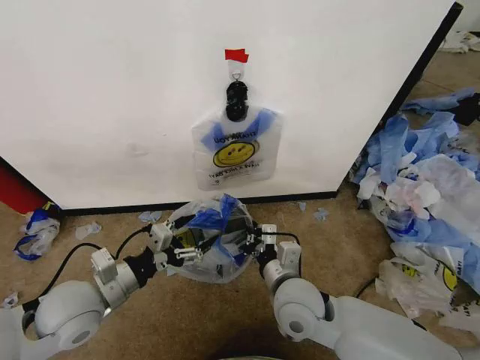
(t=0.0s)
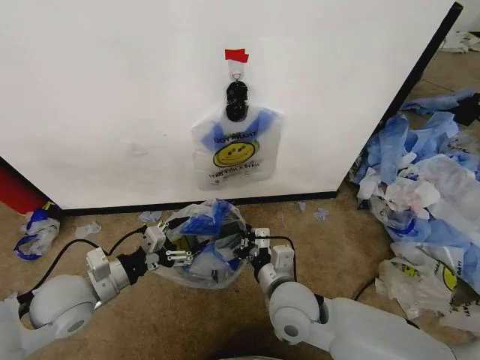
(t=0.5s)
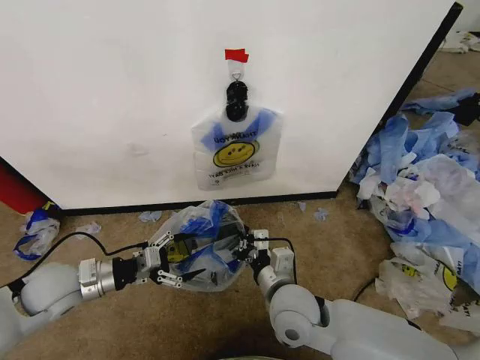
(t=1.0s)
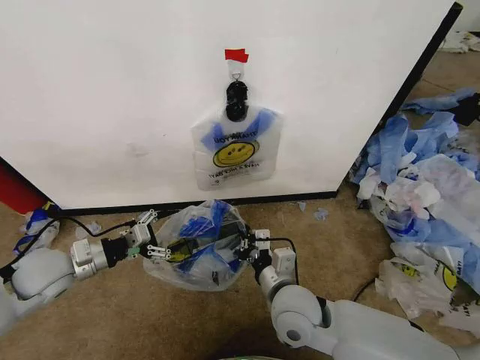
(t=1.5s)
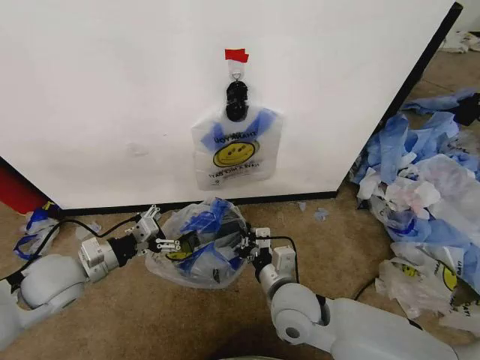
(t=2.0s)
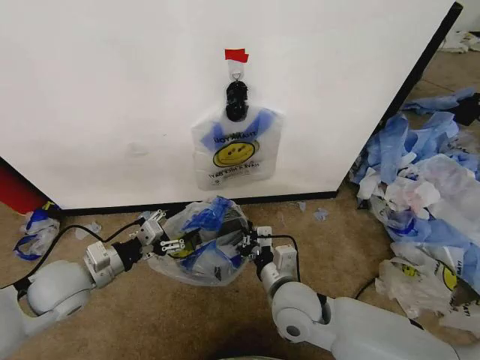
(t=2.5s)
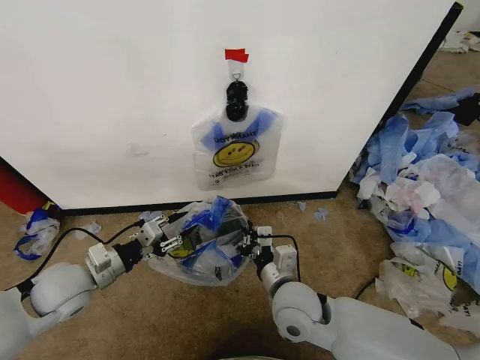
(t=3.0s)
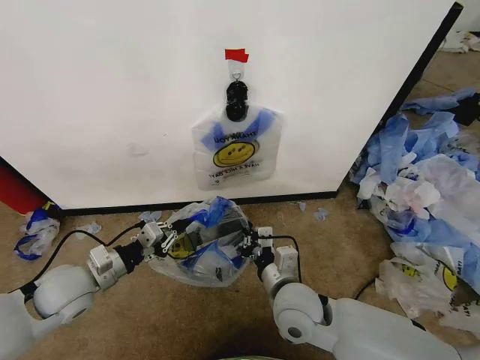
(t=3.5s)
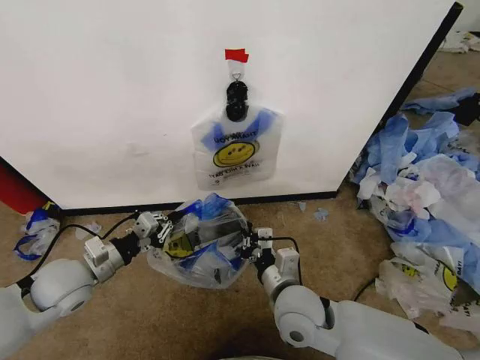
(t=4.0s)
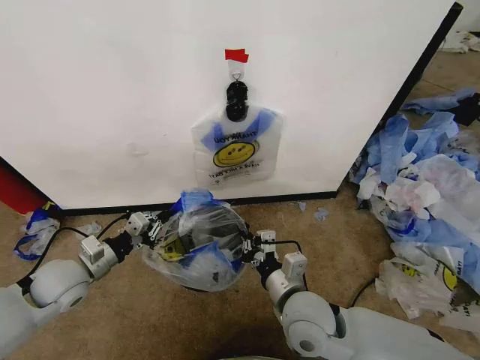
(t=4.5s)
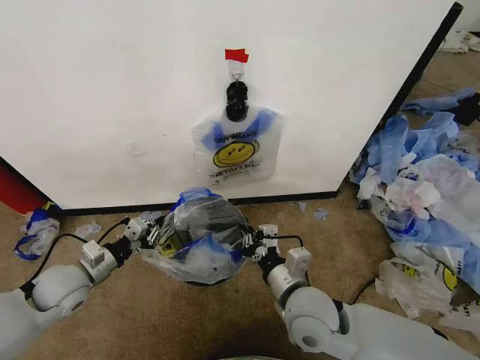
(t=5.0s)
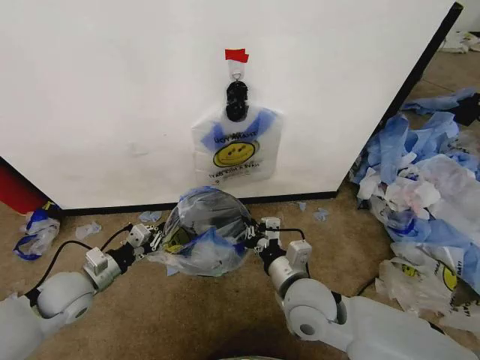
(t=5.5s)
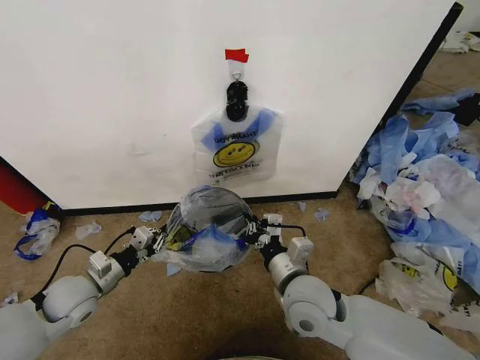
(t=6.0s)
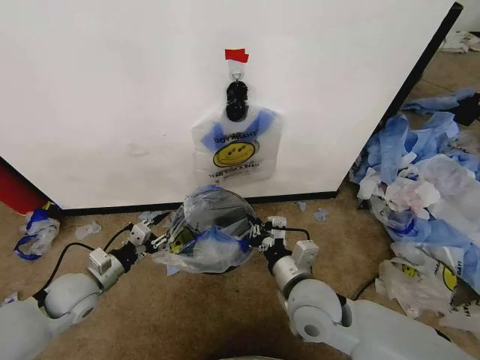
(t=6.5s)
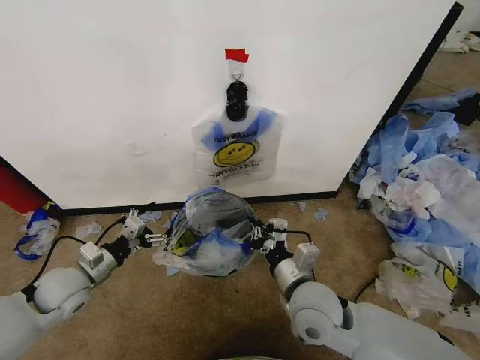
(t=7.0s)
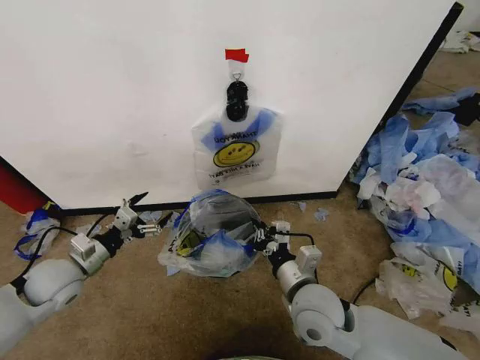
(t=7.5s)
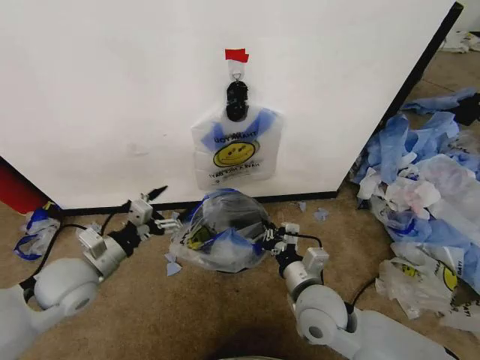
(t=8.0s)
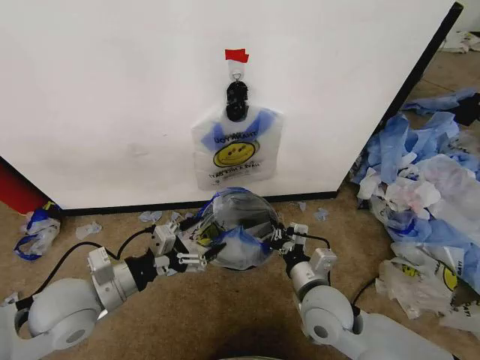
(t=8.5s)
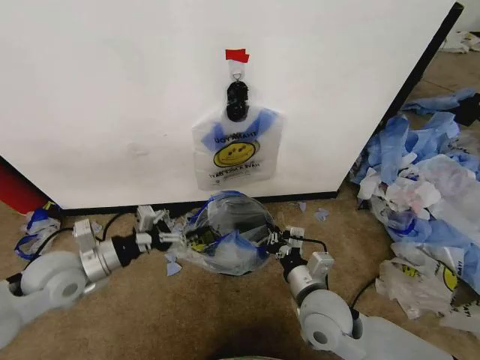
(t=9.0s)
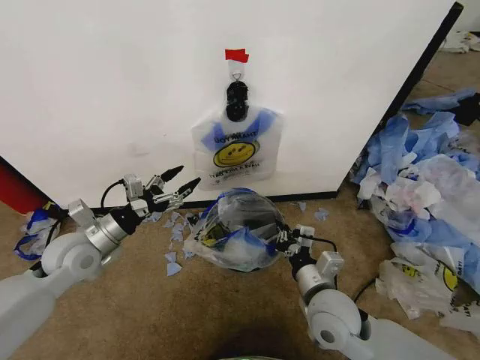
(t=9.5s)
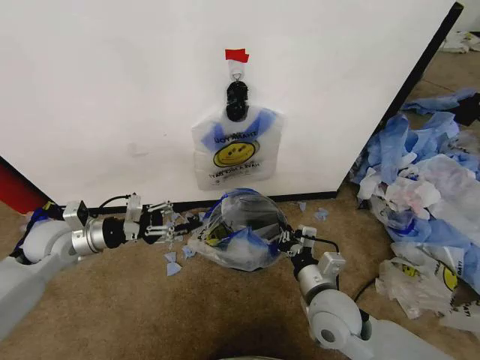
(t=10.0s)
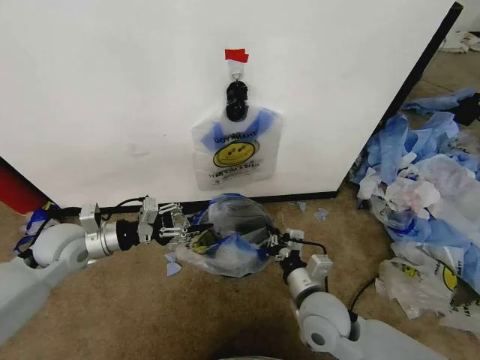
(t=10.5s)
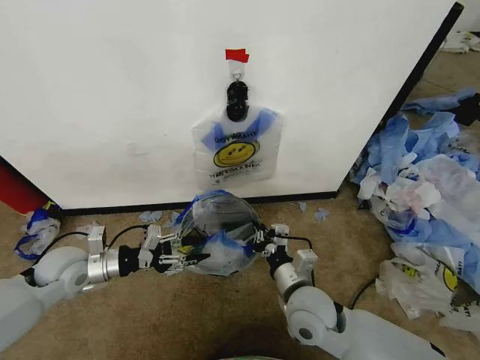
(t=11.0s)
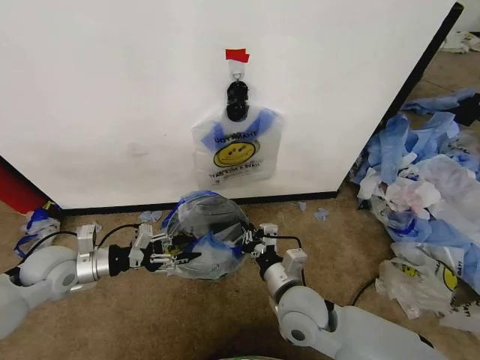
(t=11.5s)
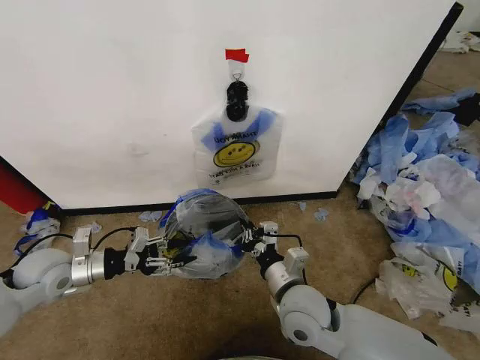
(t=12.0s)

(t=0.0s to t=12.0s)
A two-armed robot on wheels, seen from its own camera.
Task of the whole recording: Pick up the garbage bag from the wall and place it over the trash bin.
t=0.0s - t=2.0s: The left gripper moves to the left and forward, about 10 cm.
t=2.0s - t=4.0s: The left gripper closes its fingers.
t=4.0s - t=6.0s: The left gripper moves downward, about 5 cm.
t=6.0s - t=8.0s: The left gripper moves upward, about 10 cm, and opens.
t=8.0s - t=10.0s: The left gripper heads forward and to the left, covering about 10 cm, and closes.
t=10.0s - t=12.0s: The right gripper moves to the left, roughly 5 cm; the left gripper changes place by approximately 5 cm.

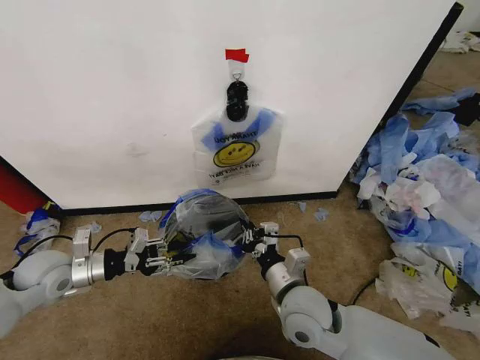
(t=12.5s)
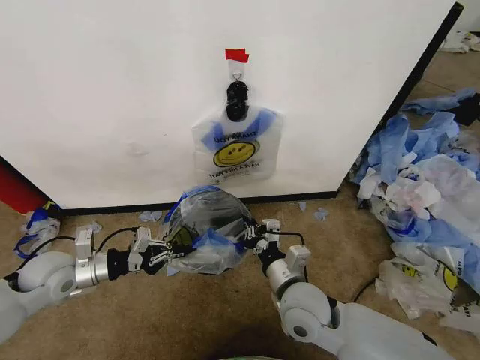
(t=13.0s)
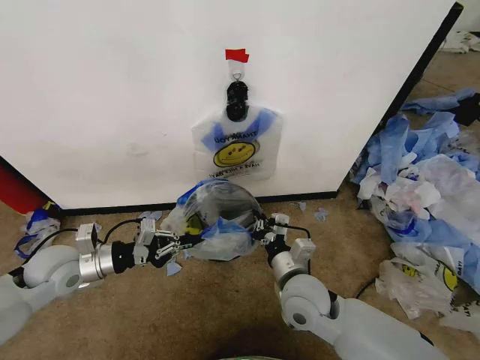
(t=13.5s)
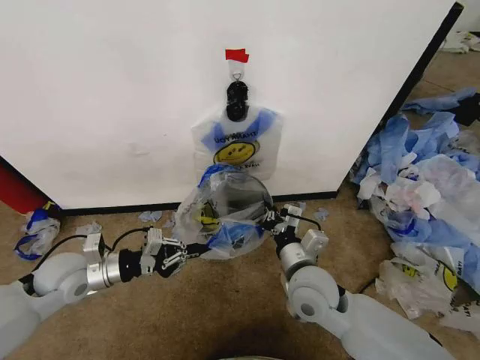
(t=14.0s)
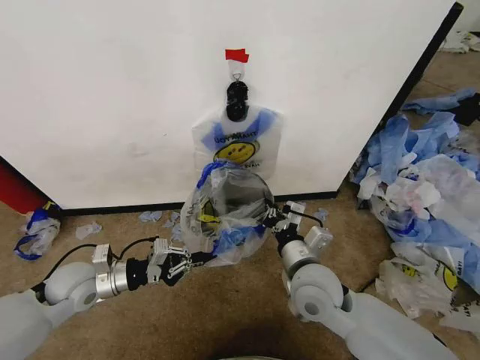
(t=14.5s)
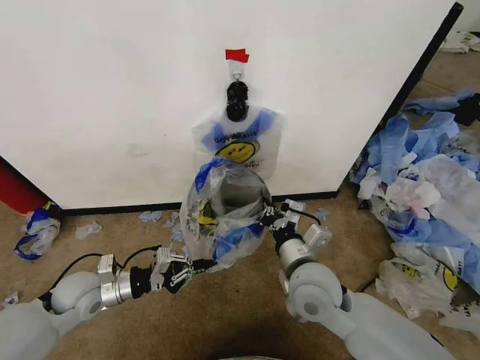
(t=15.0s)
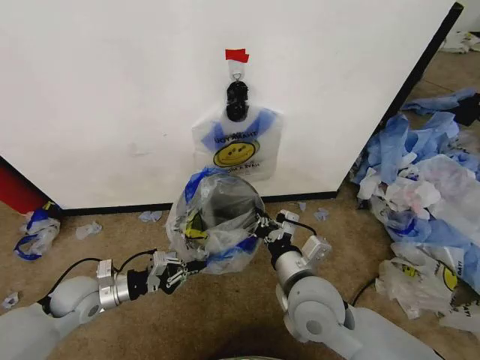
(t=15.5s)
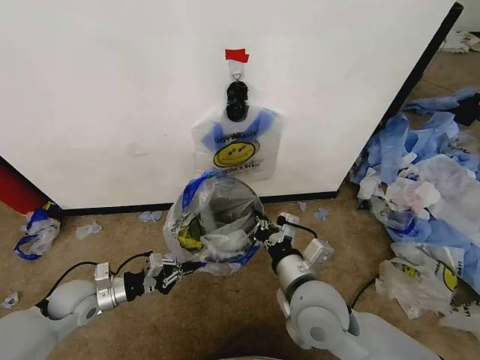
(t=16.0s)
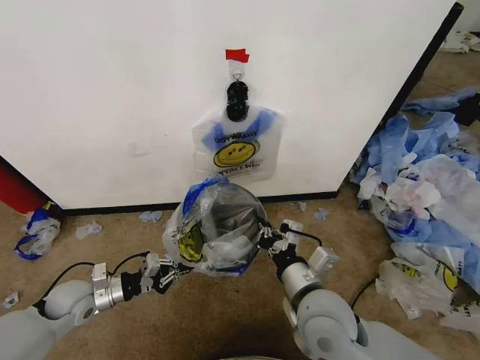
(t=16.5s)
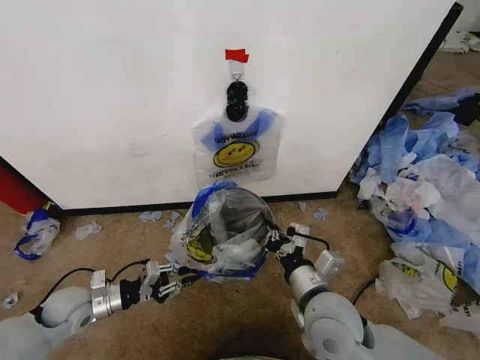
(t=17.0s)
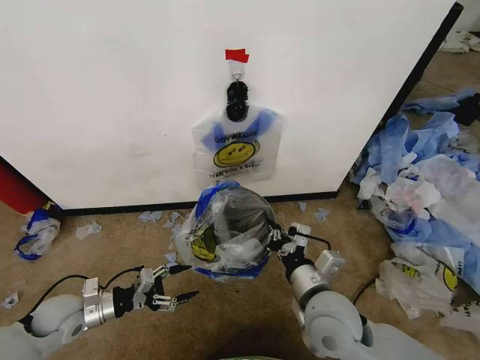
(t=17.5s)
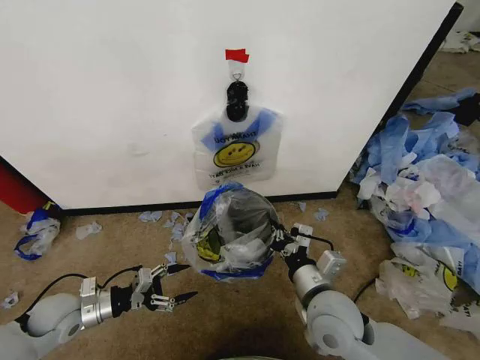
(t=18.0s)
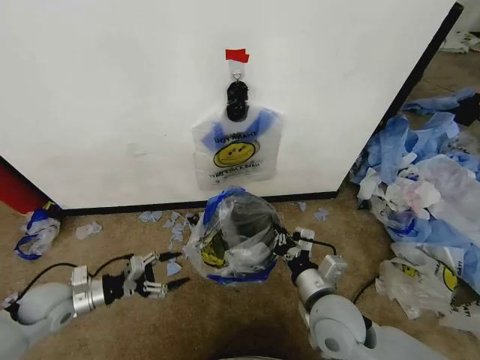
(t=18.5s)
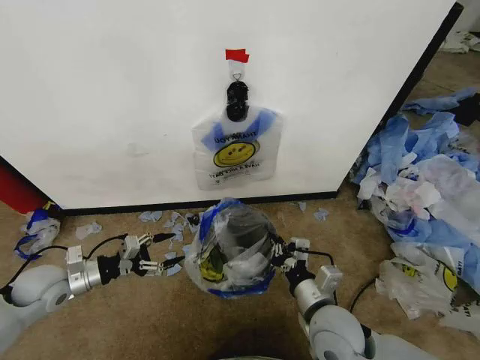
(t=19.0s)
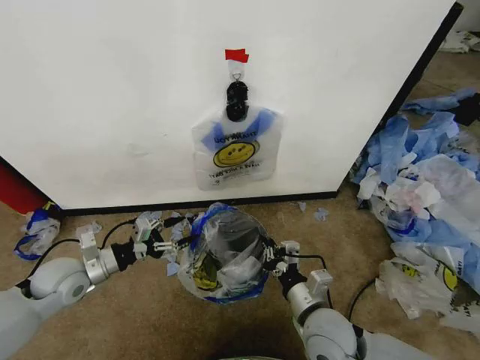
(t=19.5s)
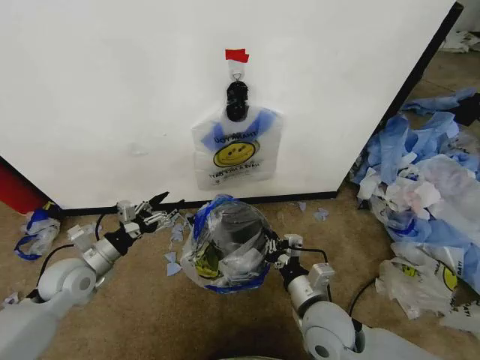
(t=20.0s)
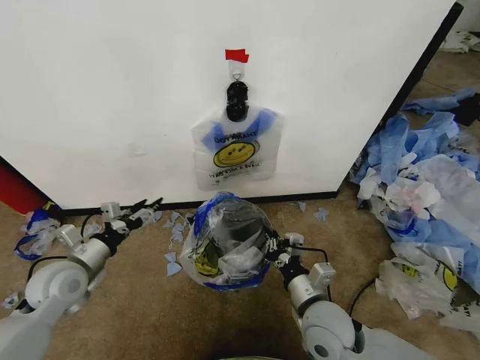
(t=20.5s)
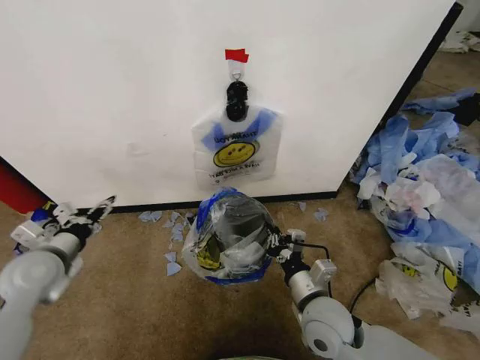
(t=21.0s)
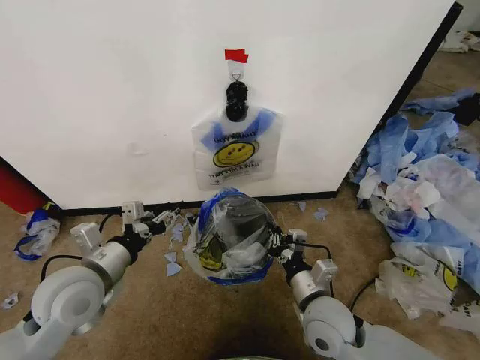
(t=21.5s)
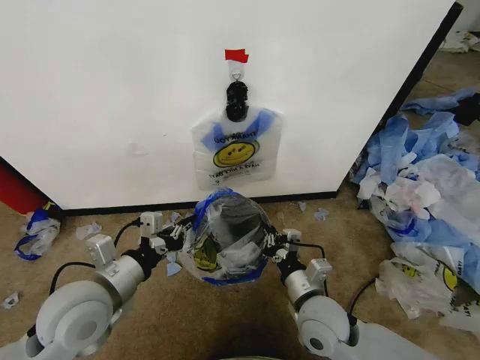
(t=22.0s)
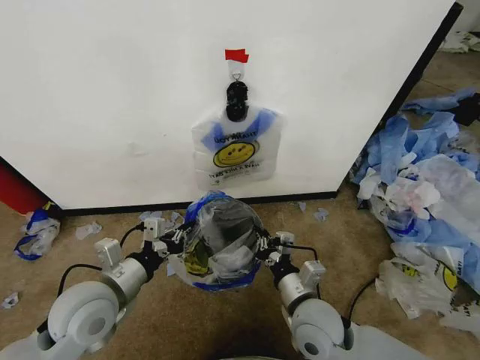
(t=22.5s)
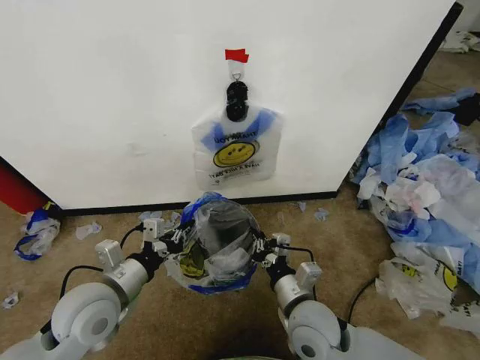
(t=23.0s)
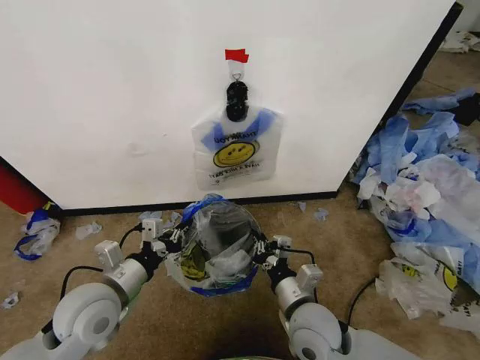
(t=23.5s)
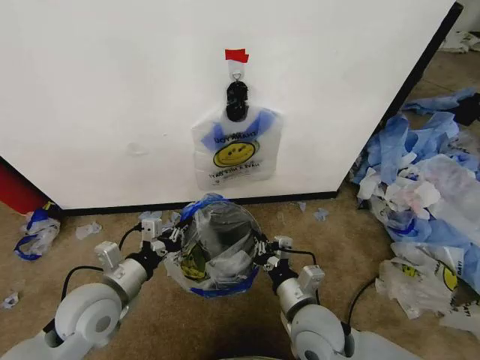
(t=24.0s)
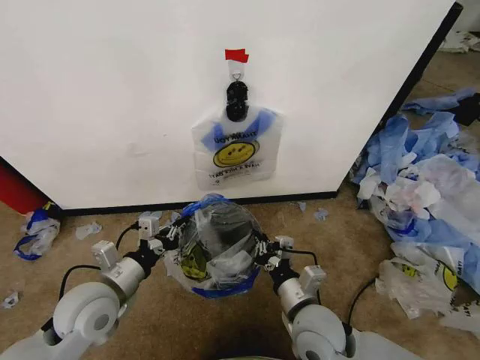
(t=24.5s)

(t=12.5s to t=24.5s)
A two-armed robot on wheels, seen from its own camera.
Task of the whole recording: Pick up the garbage bag from the wall and place it over the trash bin.
t=12.5s - t=14.5s: The left gripper is displaced to the right by some 5 cm, and closes.
t=14.5s - t=16.5s: The right gripper shifts roughly 5 cm backward. The left gripper travels downward by about 5 cm.
t=16.5s - t=18.5s: The left gripper opens. The right gripper shifts by roughly 5 cm.
t=18.5s - t=20.5s: The left gripper goes approximately 5 cm upward.
t=20.5s - t=22.5s: The left gripper goes about 15 cm to the right and backward, and closes.
t=22.5s - t=24.5s: The grippers make only small movements.

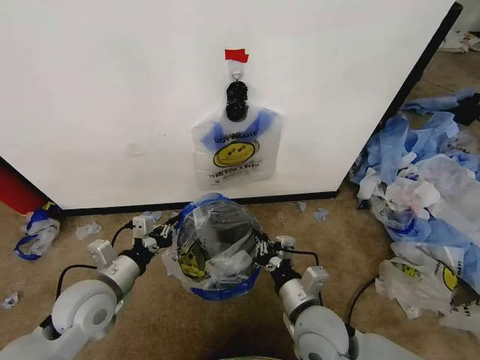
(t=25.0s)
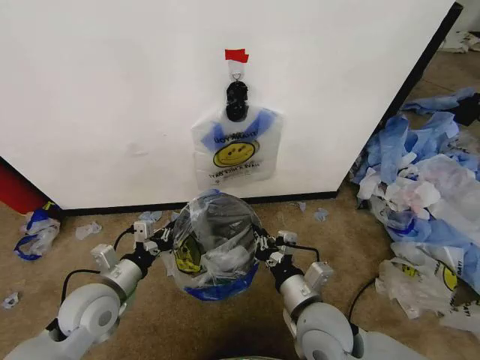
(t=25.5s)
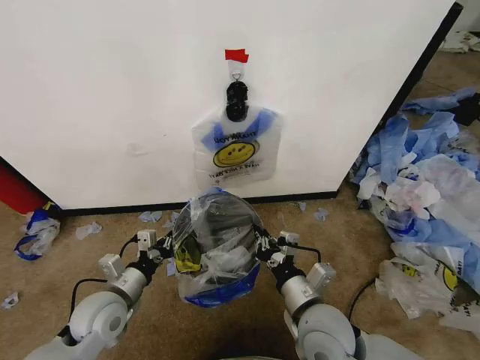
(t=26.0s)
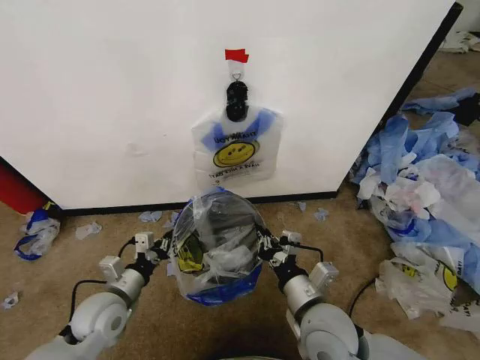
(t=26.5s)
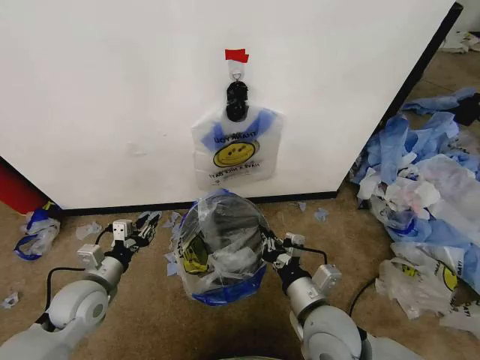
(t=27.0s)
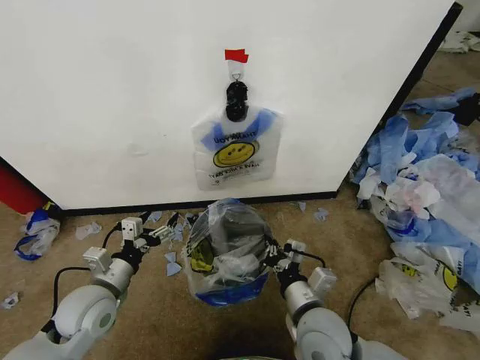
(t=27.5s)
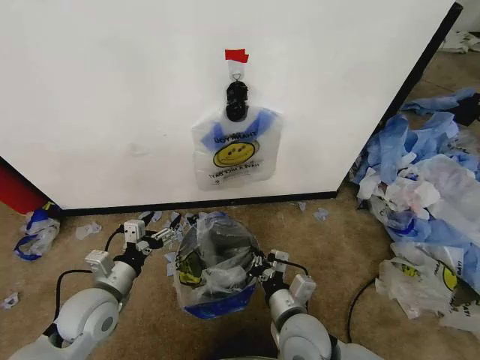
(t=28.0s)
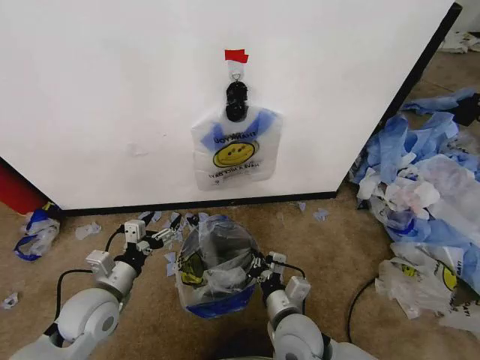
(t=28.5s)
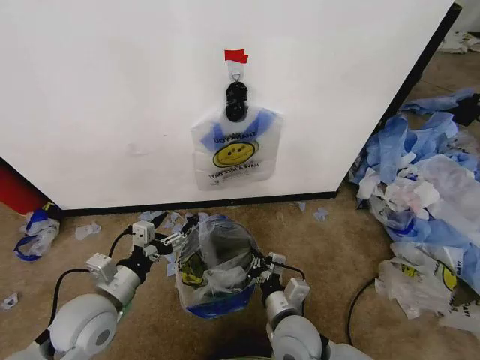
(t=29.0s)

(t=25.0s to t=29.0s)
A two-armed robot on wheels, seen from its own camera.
Task of the whole recording: Pick up the garbage bag from the wall and place it over the trash bin.
t=25.0s - t=27.0s: The left gripper changes place by approximately 5 cm, and opens.
t=27.0s - t=29.0s: The left gripper is displaced to the right by some 5 cm, and opens its fingers, while the right gripper is displaced downward by about 5 cm.
